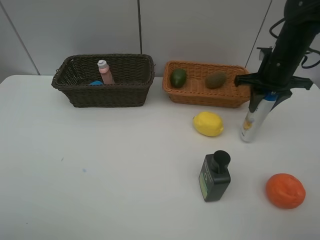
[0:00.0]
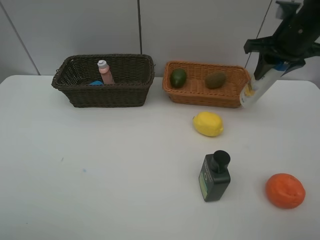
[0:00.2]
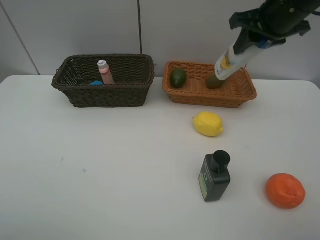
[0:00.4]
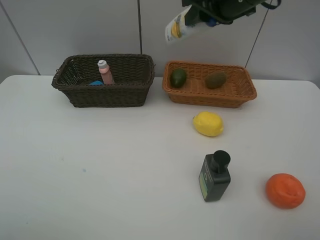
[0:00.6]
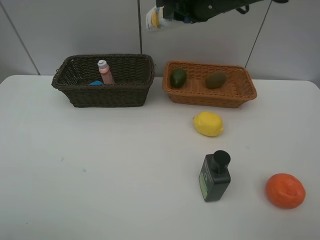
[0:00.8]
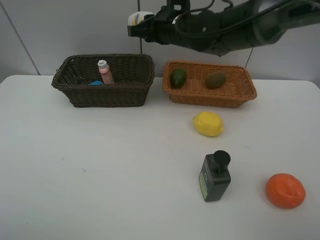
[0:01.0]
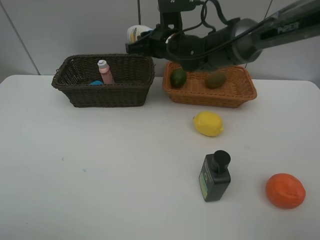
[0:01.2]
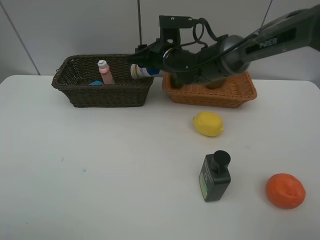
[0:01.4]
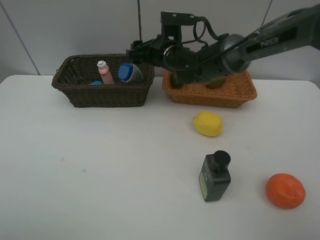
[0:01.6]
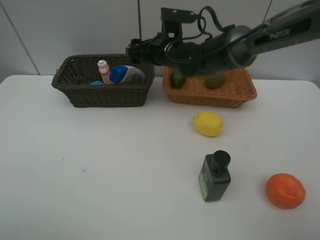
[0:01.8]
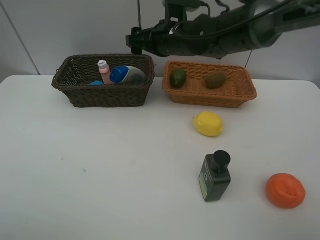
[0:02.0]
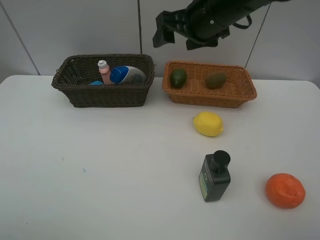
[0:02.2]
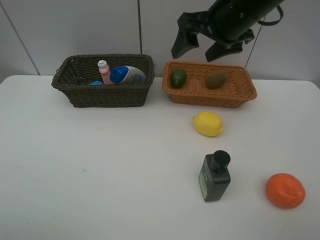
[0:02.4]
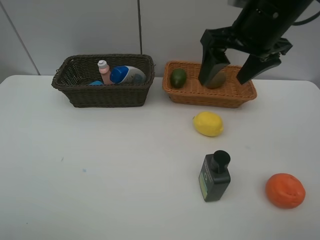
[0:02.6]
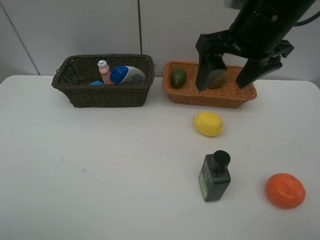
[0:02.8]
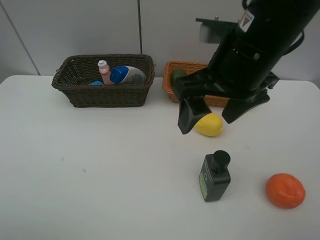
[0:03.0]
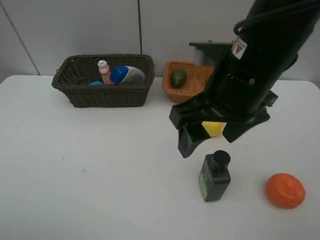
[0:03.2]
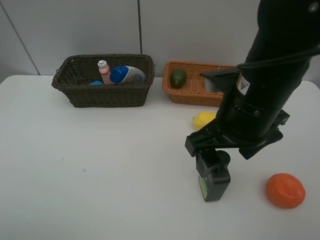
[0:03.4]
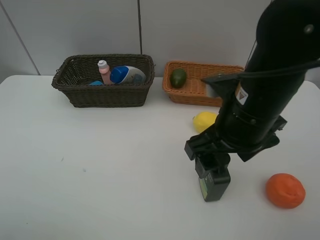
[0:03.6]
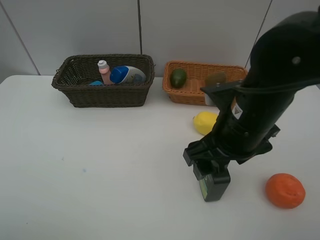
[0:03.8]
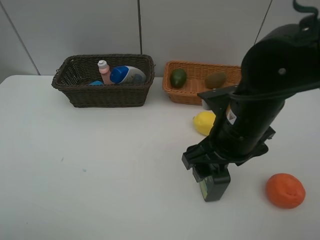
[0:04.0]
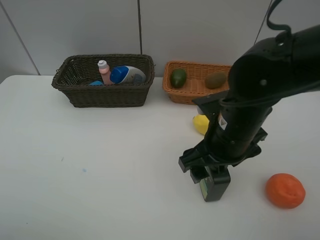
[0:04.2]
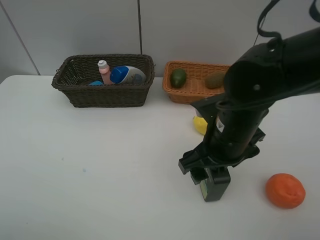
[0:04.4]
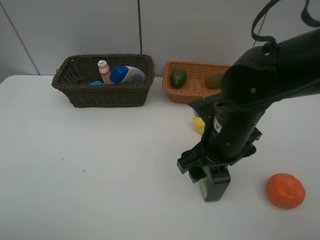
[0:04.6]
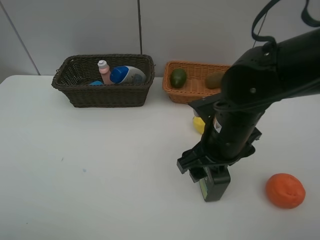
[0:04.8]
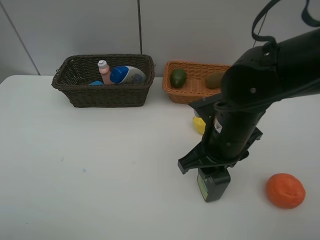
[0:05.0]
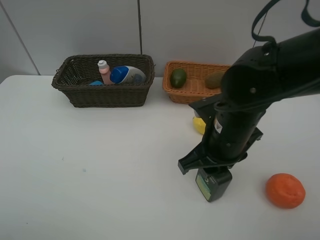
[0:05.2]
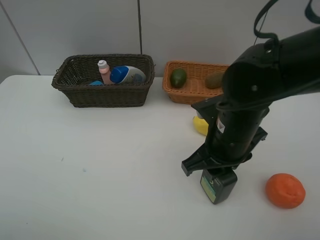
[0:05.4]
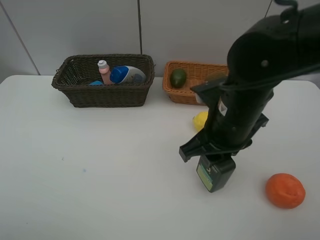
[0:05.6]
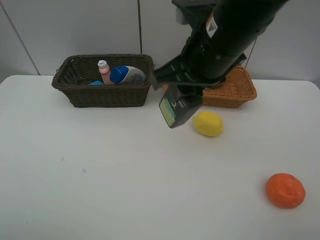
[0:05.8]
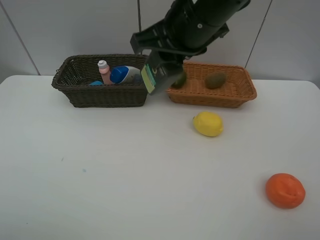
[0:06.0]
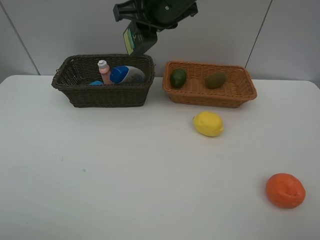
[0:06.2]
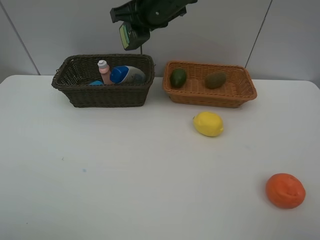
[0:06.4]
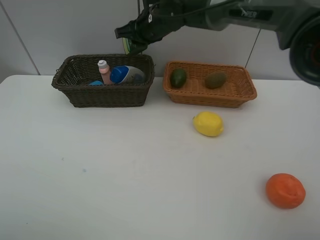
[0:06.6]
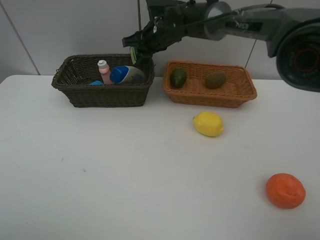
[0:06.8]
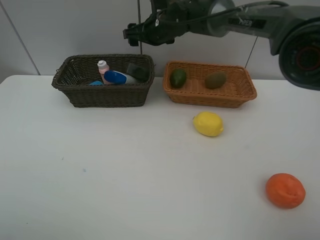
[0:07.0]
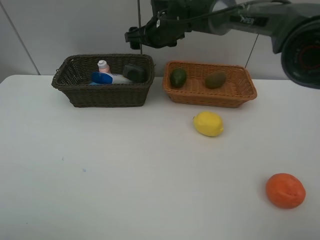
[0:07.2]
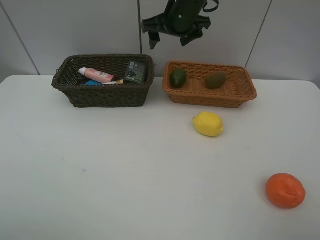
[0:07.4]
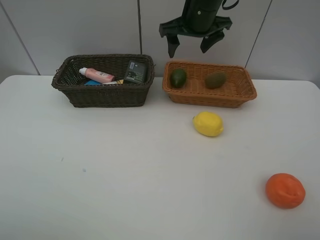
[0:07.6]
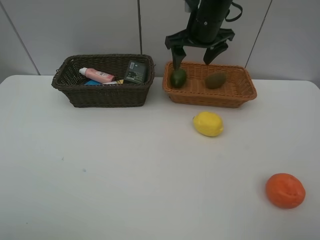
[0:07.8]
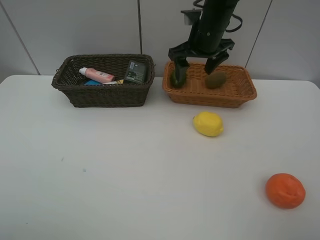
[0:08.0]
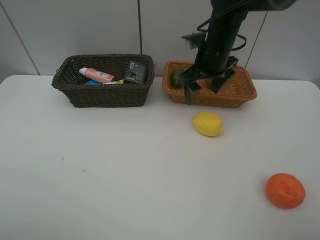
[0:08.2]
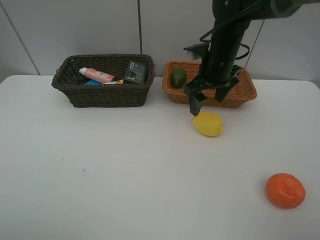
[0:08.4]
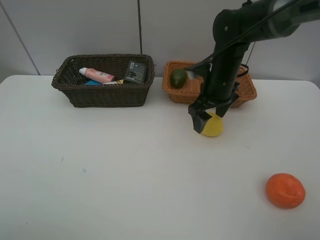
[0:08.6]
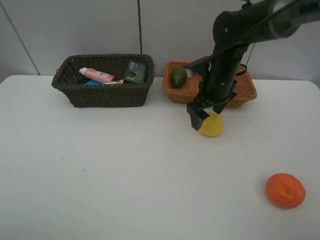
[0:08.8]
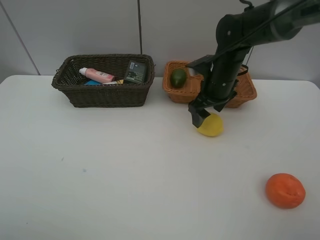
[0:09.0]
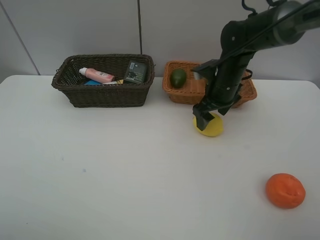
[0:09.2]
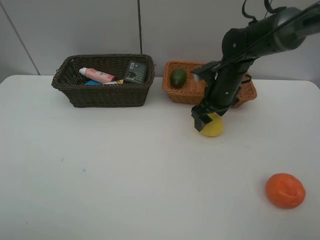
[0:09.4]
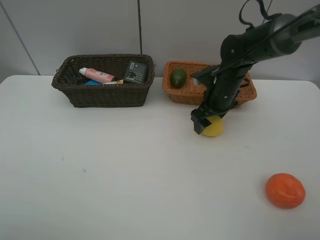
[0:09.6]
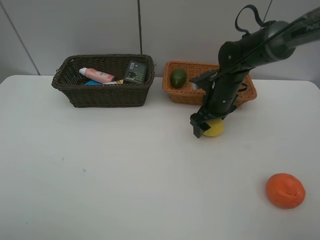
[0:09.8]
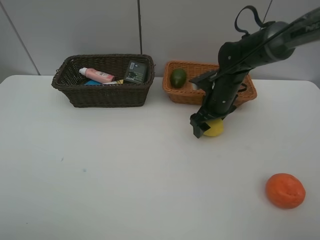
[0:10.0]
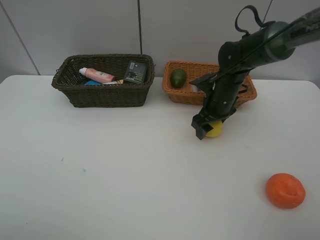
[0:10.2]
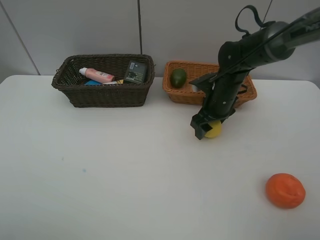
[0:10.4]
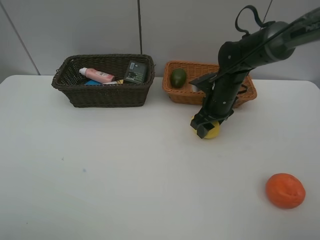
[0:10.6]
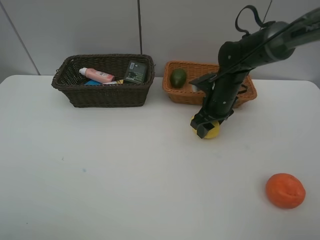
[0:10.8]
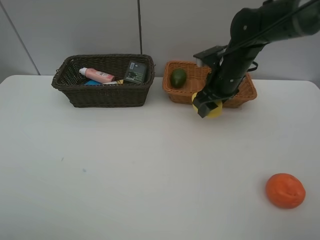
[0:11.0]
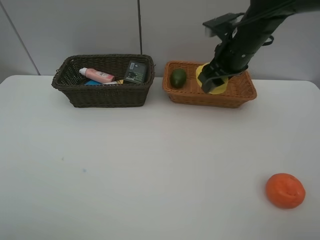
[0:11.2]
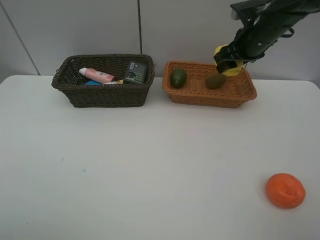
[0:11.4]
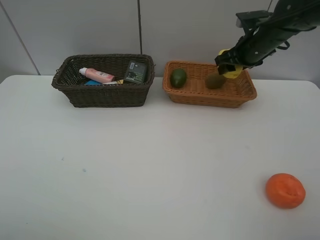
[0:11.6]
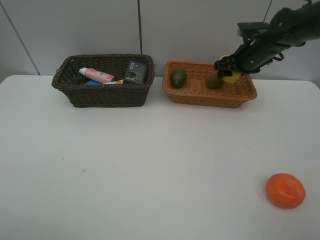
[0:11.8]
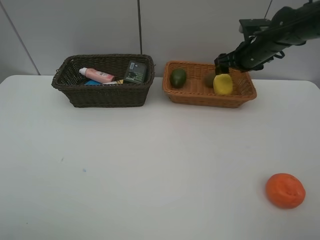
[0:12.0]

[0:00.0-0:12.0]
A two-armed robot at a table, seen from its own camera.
Task of the whole recording: Place multiple objects separately in different baskets.
Step, 0:00.2 to 0:01.6: Place the shampoo in the dark basket with right gripper.
Step, 0:01.8 to 0:05.6: Pick up the hard facial cleanser with right gripper.
Step, 0:05.8 to 0:07.2: Place the hard facial cleanser in the dark basket with right gripper.
Step, 0:07.4 to 0:11.0: Pick up the lemon with right gripper.
0:00.0 to 0:01.6: The right gripper is displaced to the left by some 25 cm, and opens.
0:01.6 to 0:03.0: The right gripper heads backward, upward and to the right, covering roughly 25 cm.
0:03.0 to 0:04.4: The right gripper is displaced downward by about 10 cm.
0:04.4 to 0:06.0: The right gripper heads upward, forward and to the left, covering roughly 20 cm, and closes up.
0:06.0 to 0:07.6: The right gripper heads forward, covering roughly 15 cm, and opens up.
0:07.6 to 0:09.0: The right gripper travels downward, backward and to the right by about 15 cm.
0:09.0 to 0:10.4: The grippers move only a little.
0:10.4 to 0:12.0: The right gripper travels to the right, forward and upward by some 15 cm.

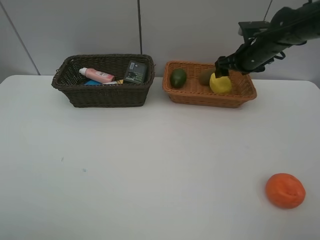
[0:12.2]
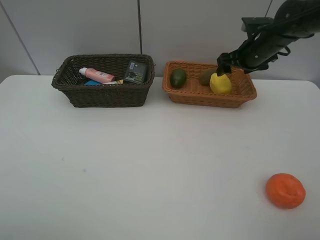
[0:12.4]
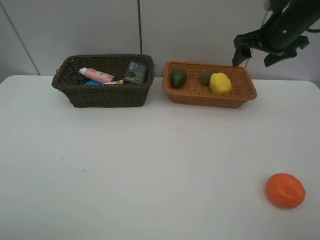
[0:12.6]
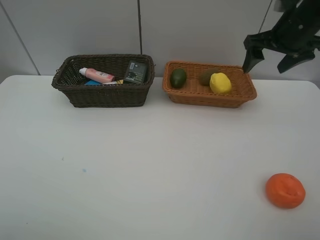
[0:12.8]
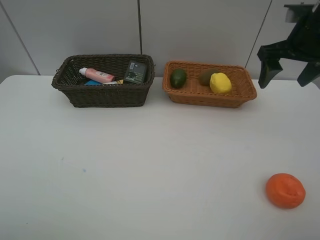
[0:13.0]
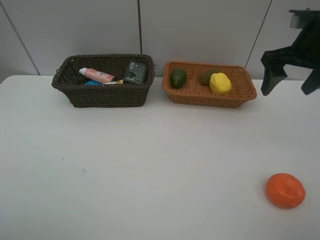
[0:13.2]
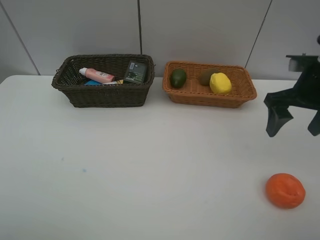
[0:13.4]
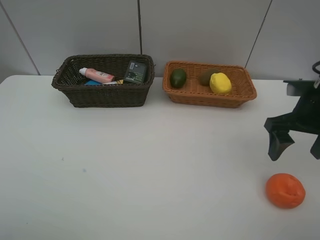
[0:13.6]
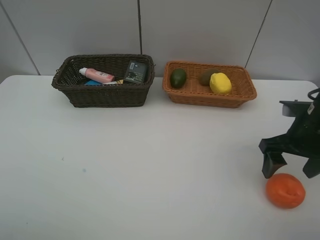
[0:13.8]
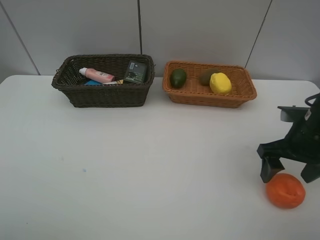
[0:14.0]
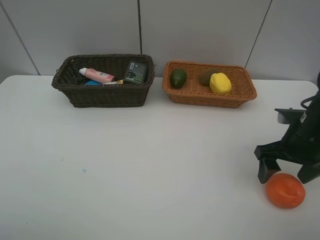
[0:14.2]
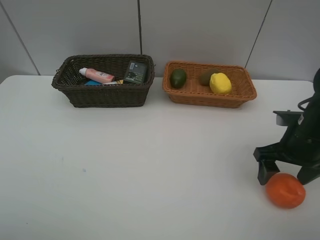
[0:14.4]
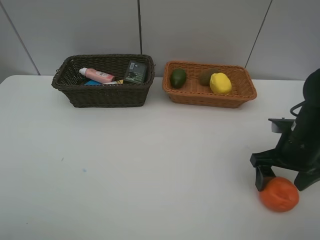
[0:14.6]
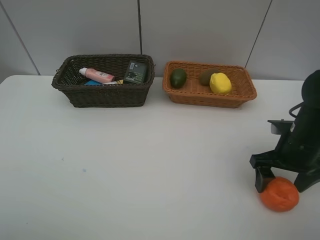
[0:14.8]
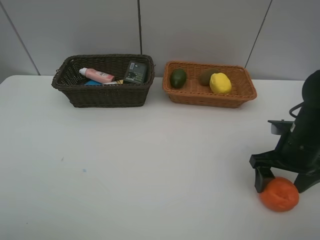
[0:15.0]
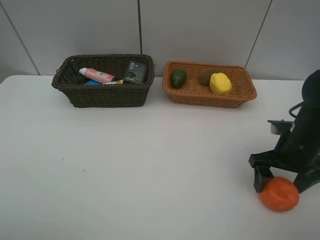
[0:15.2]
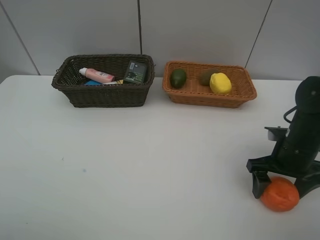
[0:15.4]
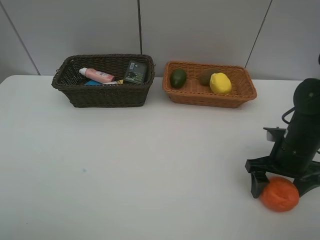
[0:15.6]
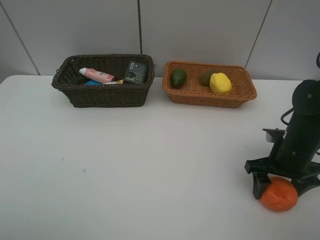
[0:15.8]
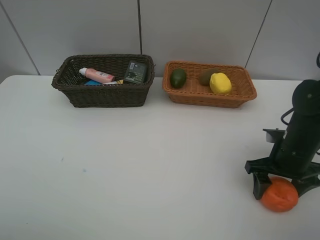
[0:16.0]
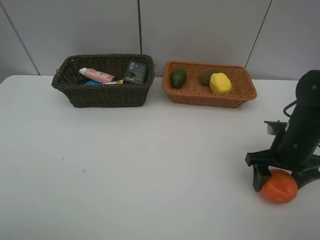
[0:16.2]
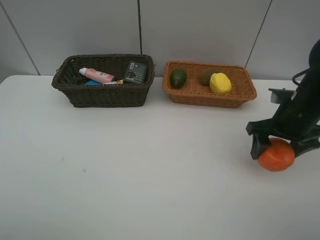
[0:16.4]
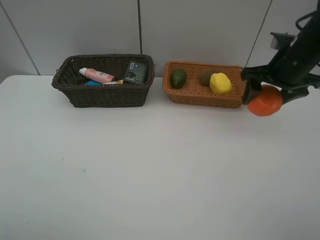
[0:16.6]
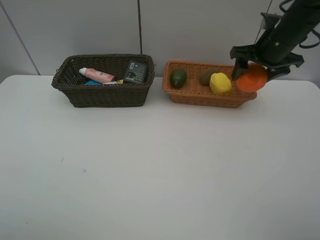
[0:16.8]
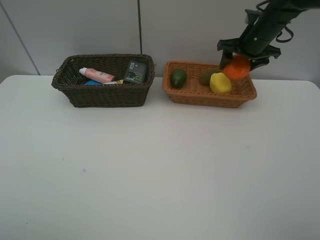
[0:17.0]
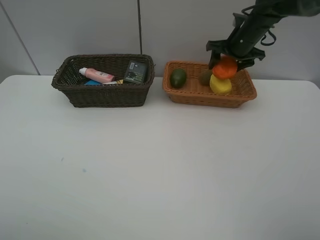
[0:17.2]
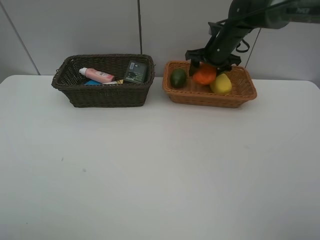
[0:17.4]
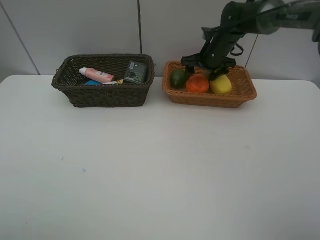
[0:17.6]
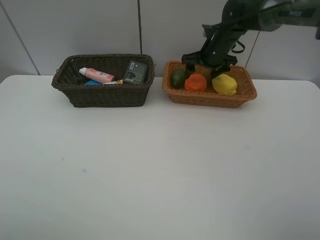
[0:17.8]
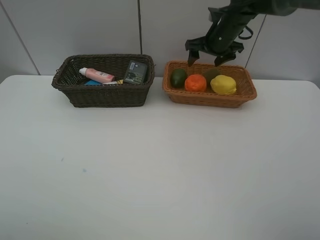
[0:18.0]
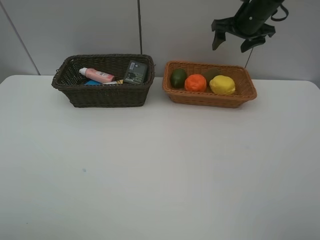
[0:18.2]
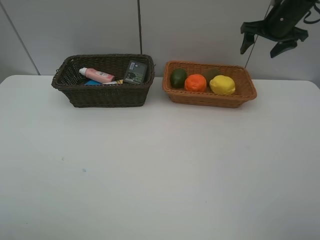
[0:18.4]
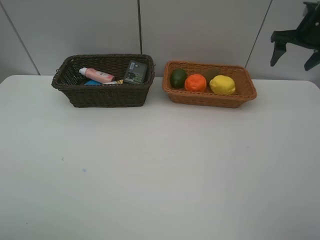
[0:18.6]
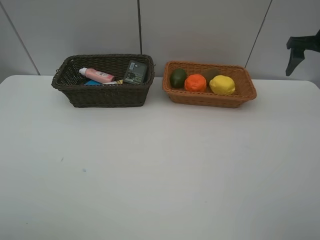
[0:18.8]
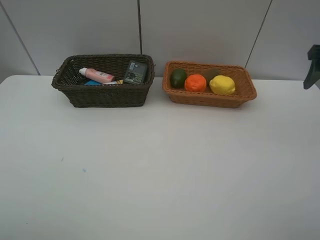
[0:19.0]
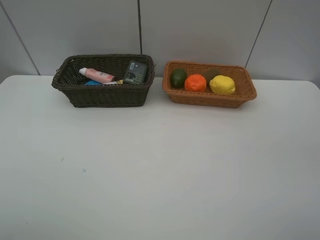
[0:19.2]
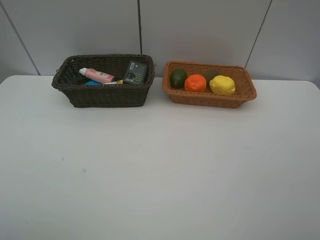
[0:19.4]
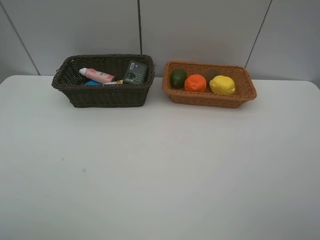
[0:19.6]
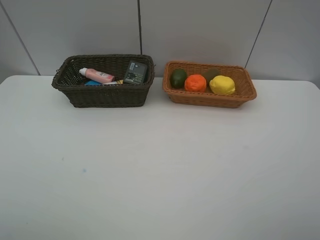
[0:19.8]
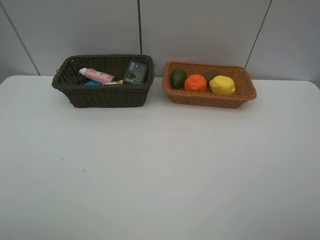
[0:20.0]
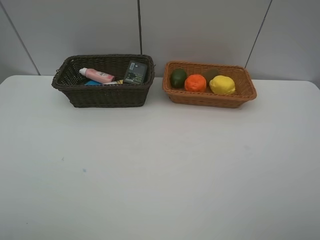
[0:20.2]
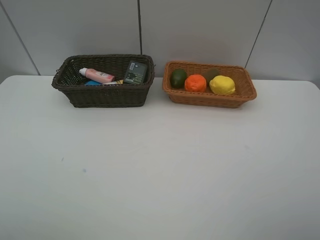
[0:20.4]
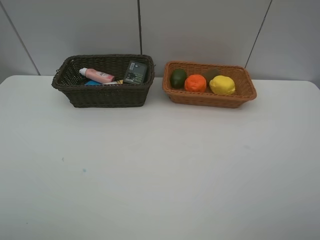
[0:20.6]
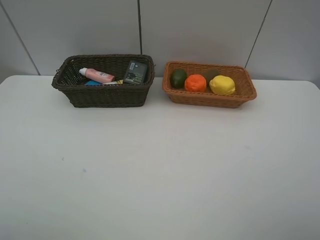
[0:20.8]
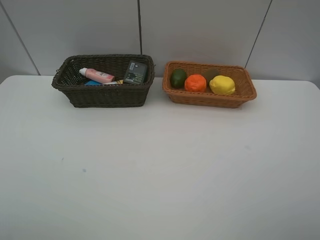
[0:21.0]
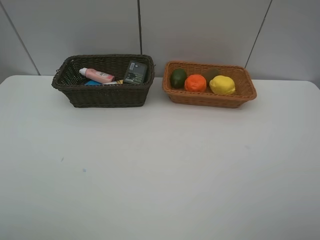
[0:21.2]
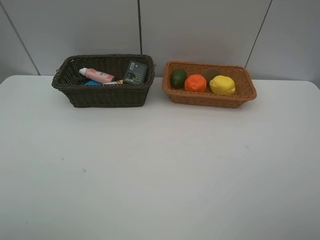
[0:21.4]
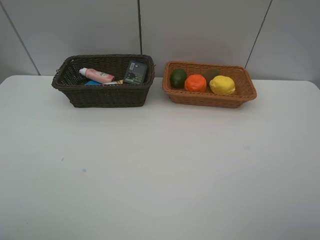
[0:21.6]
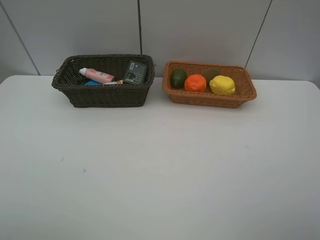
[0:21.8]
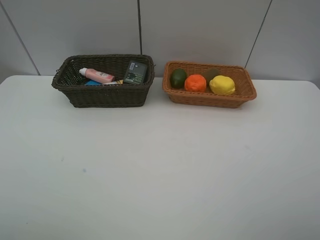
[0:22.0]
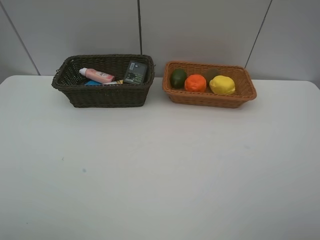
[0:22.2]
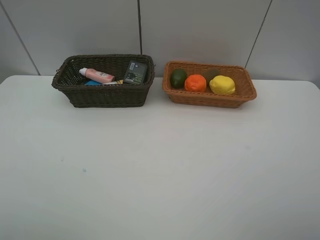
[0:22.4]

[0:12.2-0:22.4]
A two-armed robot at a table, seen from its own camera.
Task of the whole recording: Place multiple objects separately in different baskets.
Step, 0:12.4 to 0:16.2: Pick up the orange with right gripper.
Step, 0:16.4 to 0:18.0: Place the orange in the light basket with right gripper.
0:12.2 to 0:13.6: The right gripper heads backward, covering approximately 20 cm.
0:13.6 to 0:15.2: The right gripper is displaced downward by about 5 cm.
0:15.2 to 0:16.6: The right gripper goes some 15 cm forward and upward.
0:16.6 to 0:18.0: The right gripper is displaced forward and to the left by about 15 cm.
0:18.0 to 0:19.4: The right gripper travels backward and to the right by about 40 cm.
